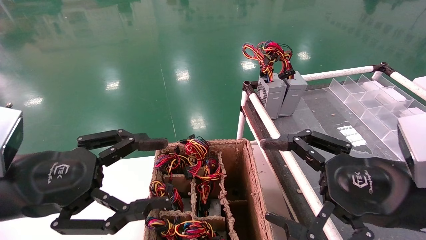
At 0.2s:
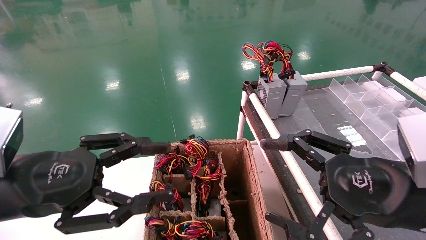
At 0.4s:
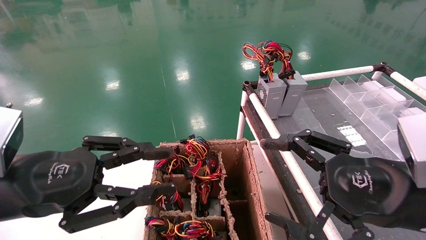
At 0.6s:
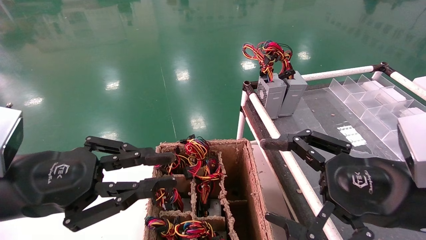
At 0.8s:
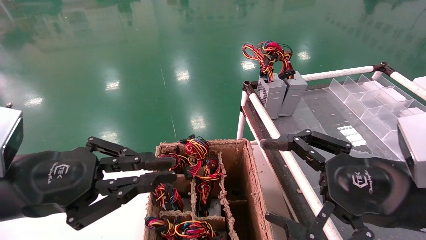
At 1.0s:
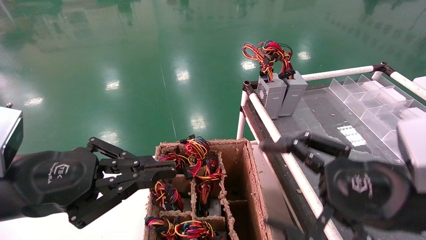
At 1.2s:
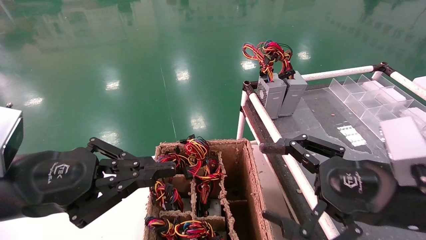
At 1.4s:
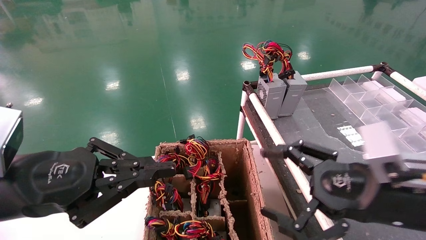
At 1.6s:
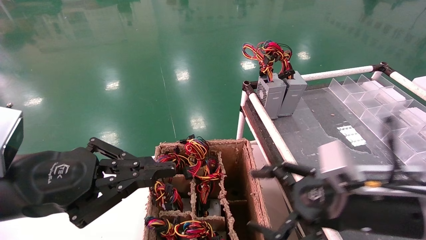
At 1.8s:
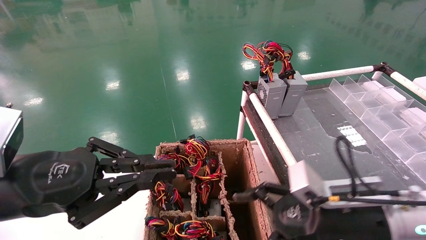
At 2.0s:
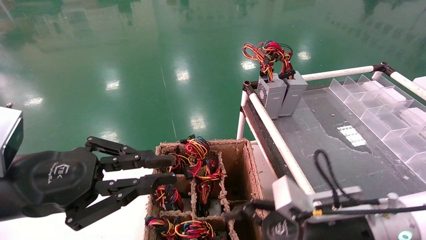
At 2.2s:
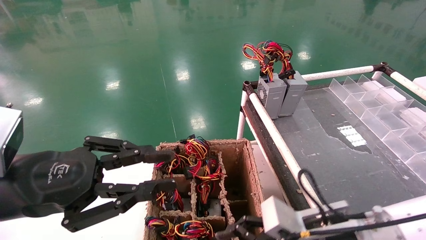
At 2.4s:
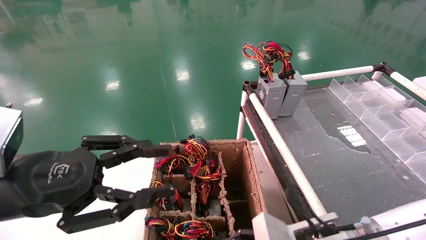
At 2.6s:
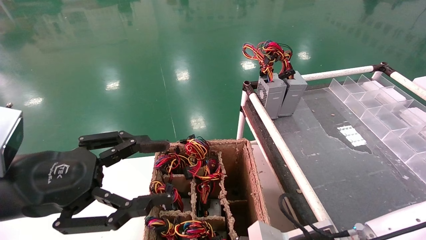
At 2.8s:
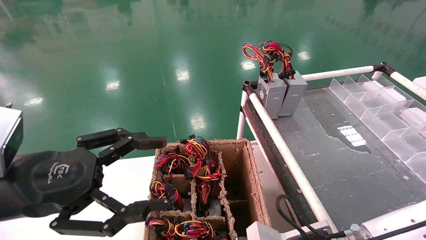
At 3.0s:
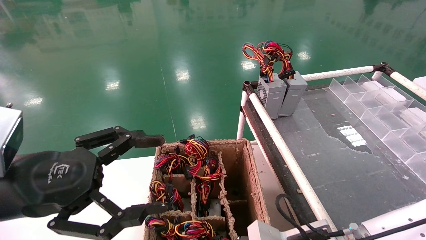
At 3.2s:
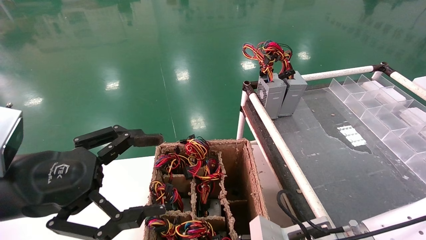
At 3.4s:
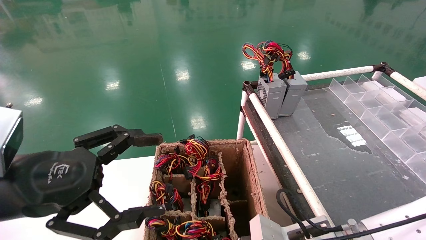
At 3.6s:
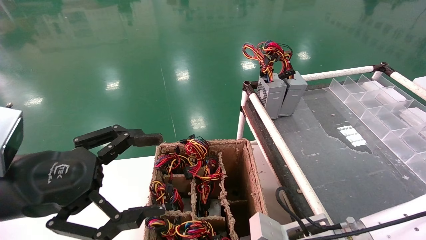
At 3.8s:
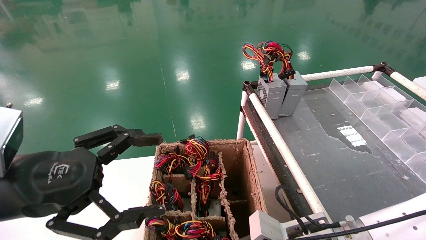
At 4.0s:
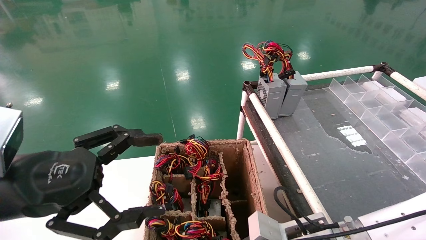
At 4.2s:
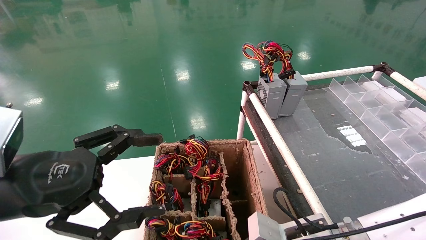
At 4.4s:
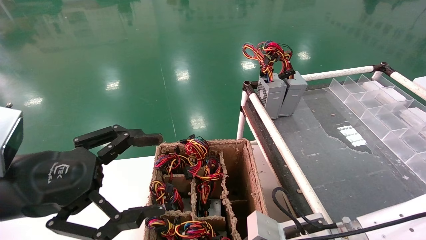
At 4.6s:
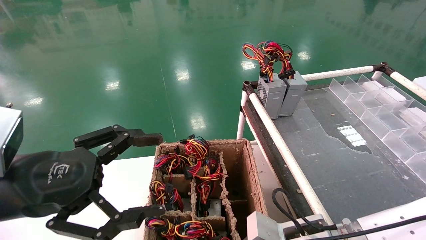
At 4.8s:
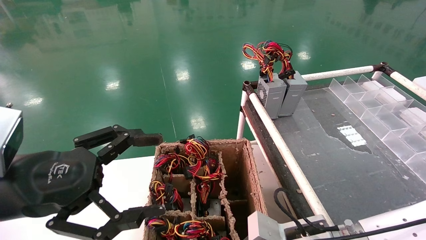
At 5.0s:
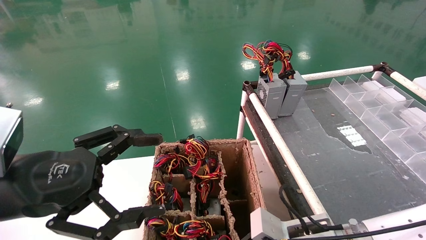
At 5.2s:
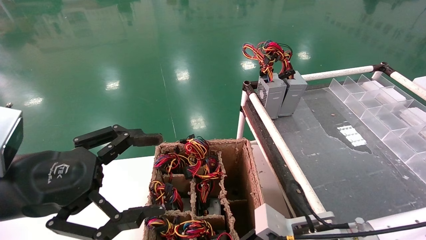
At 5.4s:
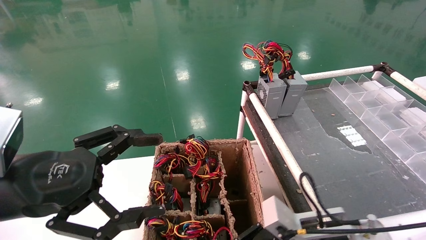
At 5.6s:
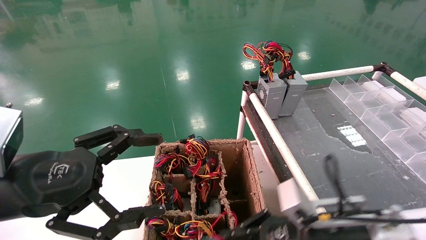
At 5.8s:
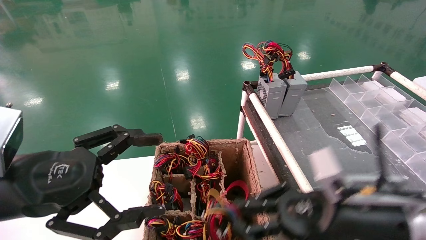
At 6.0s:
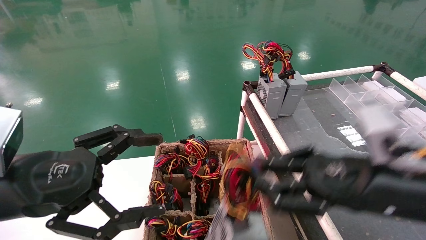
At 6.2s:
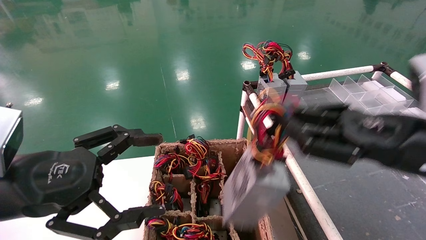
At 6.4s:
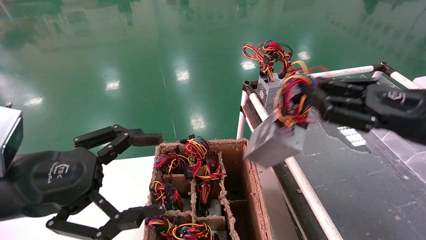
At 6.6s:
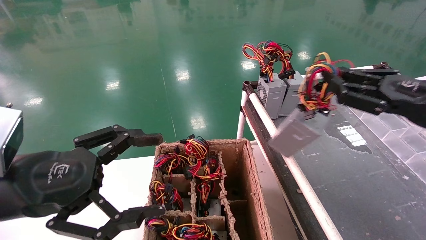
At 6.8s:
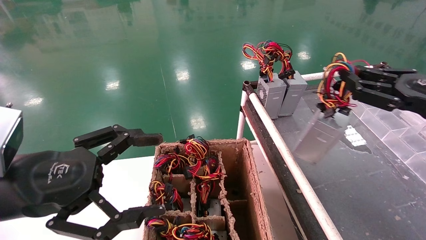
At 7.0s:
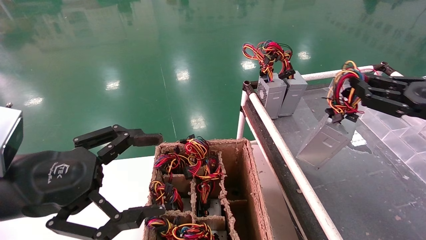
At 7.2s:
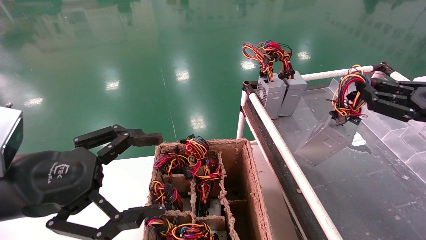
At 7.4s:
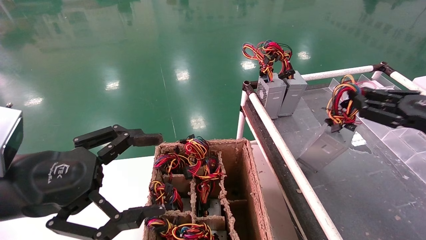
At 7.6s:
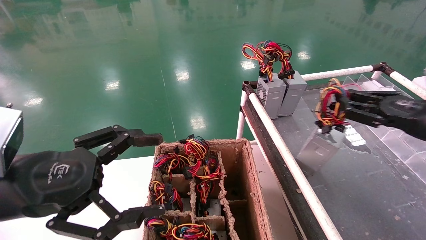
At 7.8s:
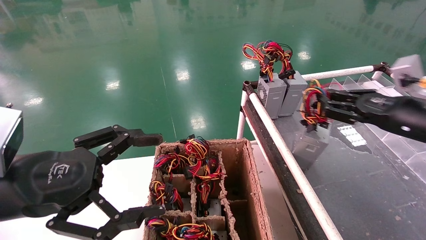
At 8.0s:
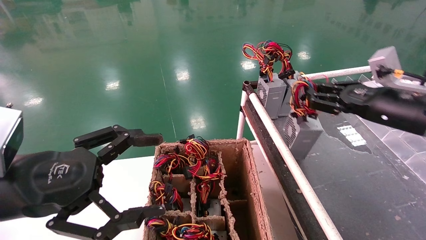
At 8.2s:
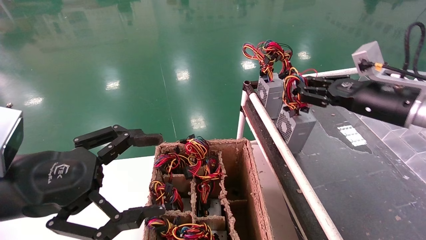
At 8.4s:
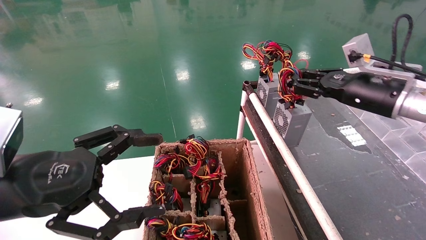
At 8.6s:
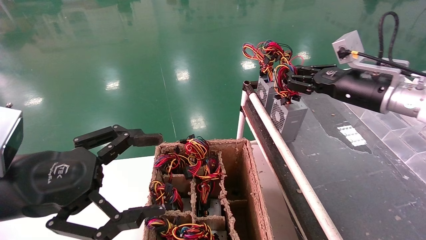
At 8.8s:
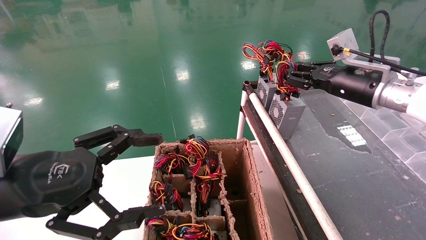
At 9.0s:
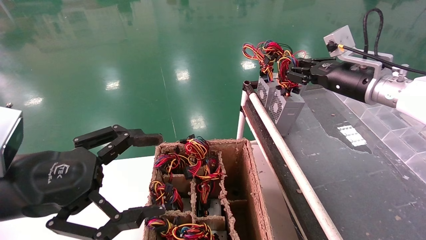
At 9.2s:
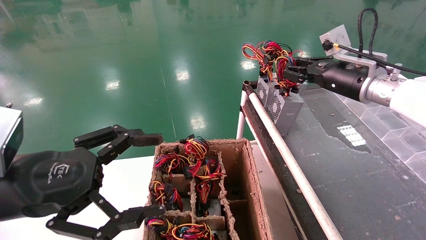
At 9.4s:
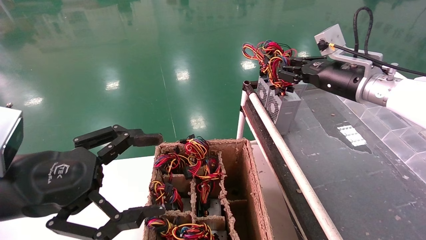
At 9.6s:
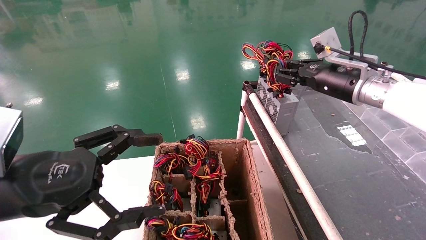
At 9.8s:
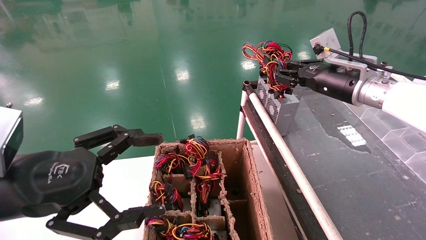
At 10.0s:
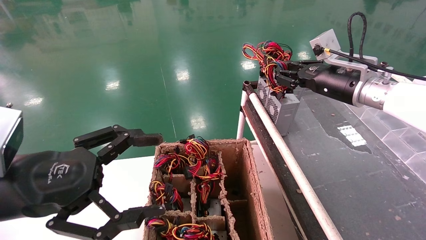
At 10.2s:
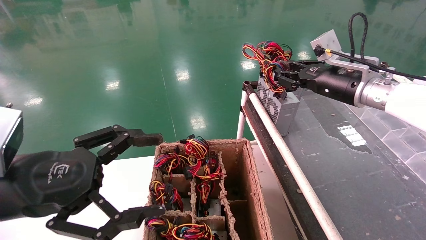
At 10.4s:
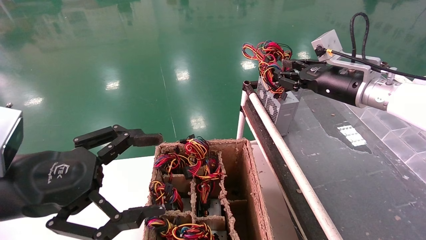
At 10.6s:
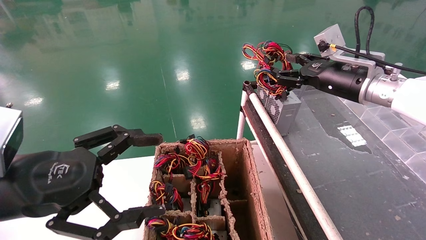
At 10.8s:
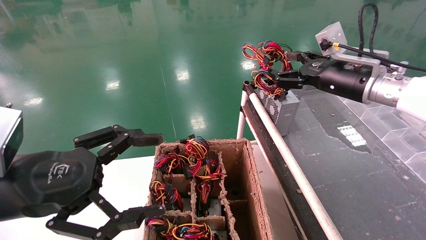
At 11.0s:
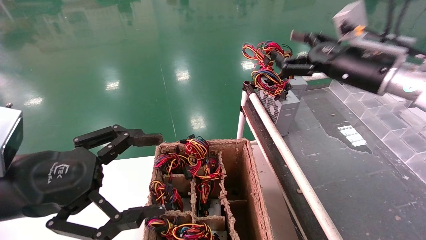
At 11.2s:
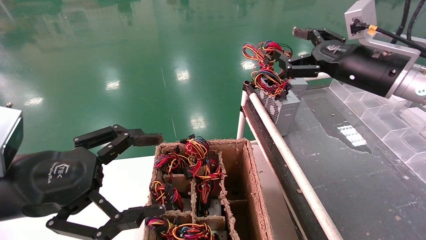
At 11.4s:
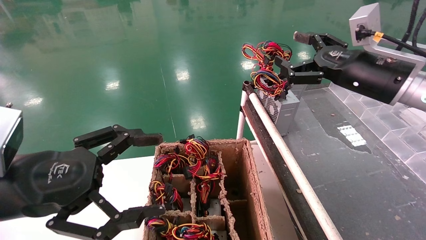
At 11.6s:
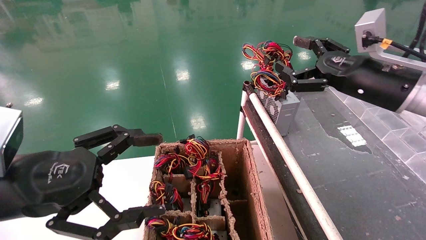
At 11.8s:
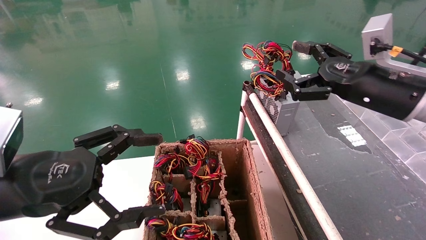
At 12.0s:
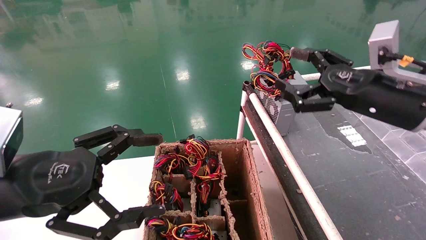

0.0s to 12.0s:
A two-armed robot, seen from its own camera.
Step, 1.2s to 4.4s: Grab and lift the power supply from the large box.
Step, 4.6s to 10.2s: Place the power supply on the operating table.
0.0s to 1.6s: The left gripper closes up, while the right gripper goes about 5 cm downward.
1.6s to 3.0s: The right gripper moves downward and to the left, roughly 10 cm. The left gripper opens its fingers.
3.0s to 4.4s: The right gripper closes its fingers.
4.4s to 6.0s: The right gripper goes about 15 cm upward and to the right.
6.0s to 7.6s: The right gripper shifts about 15 cm to the right and forward.
7.6s to 9.0s: The right gripper heads forward, to the left and upward, covering some 15 cm.
9.0s to 10.4s: There are only small adjustments of the grippers.
10.4s to 12.0s: The right gripper is displaced backward by approximately 10 cm, and opens.

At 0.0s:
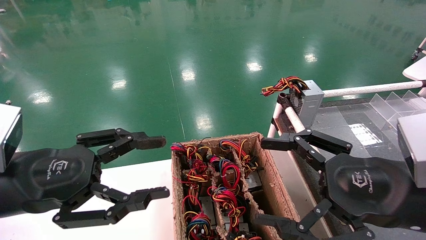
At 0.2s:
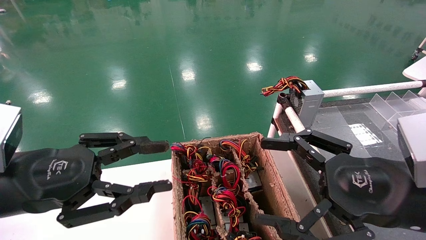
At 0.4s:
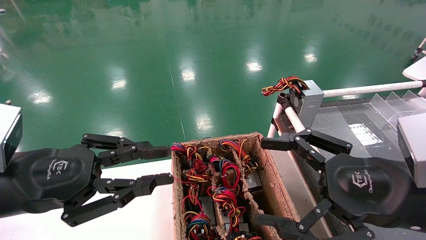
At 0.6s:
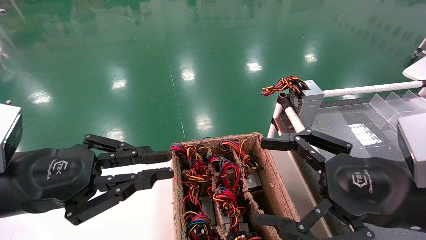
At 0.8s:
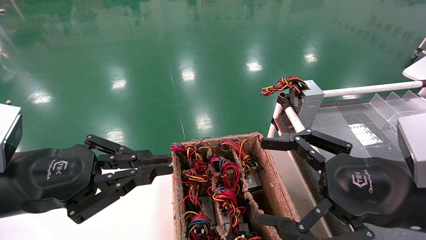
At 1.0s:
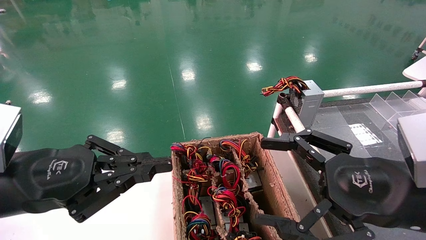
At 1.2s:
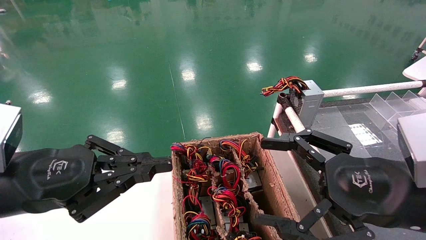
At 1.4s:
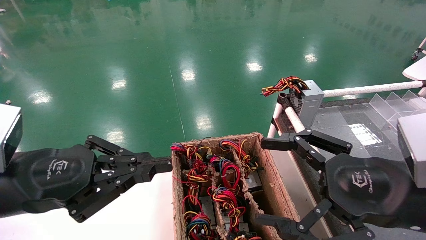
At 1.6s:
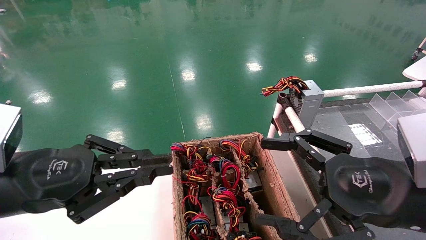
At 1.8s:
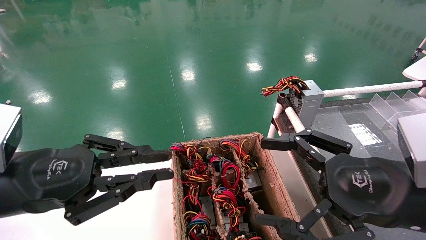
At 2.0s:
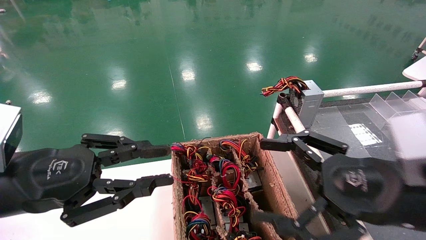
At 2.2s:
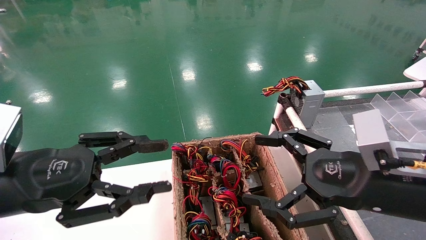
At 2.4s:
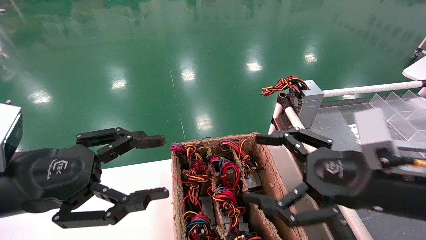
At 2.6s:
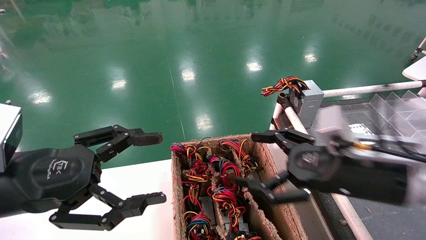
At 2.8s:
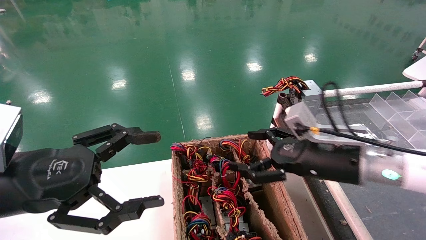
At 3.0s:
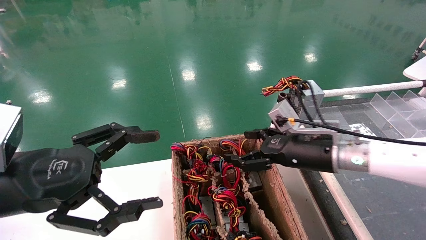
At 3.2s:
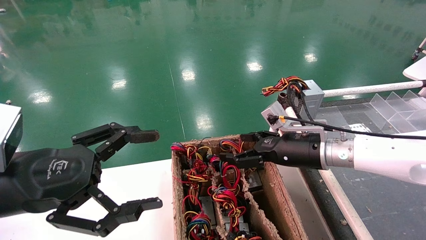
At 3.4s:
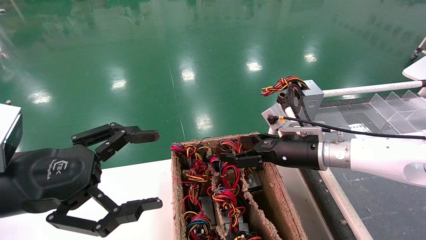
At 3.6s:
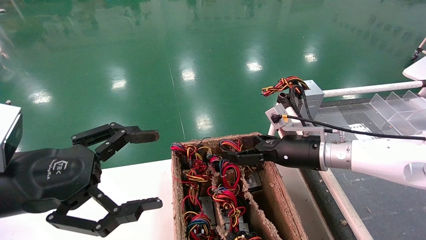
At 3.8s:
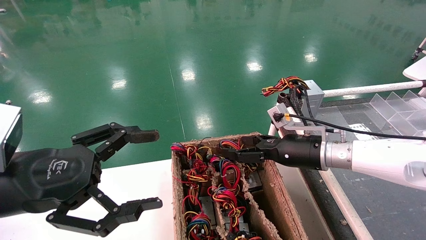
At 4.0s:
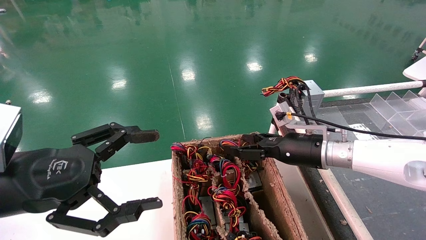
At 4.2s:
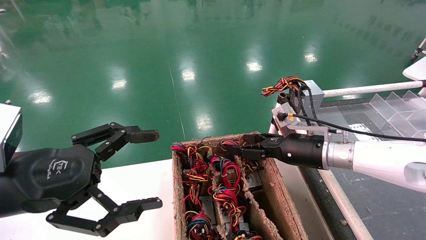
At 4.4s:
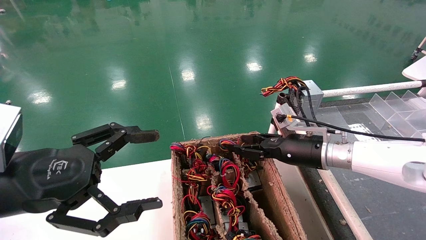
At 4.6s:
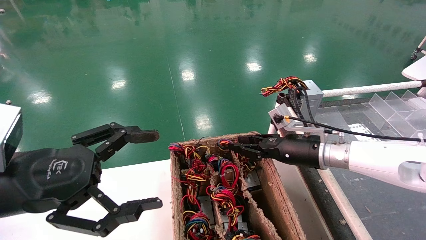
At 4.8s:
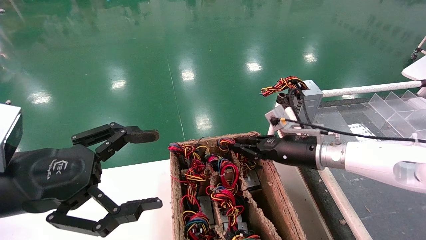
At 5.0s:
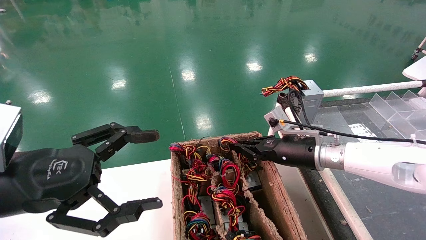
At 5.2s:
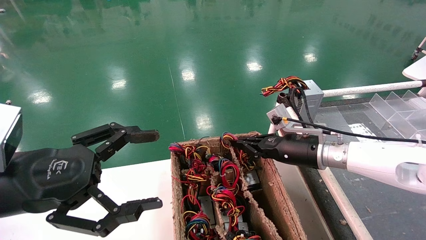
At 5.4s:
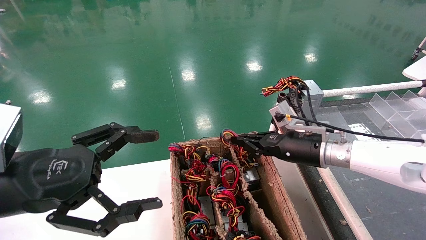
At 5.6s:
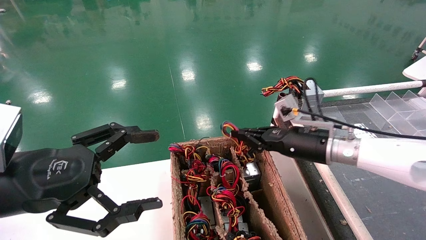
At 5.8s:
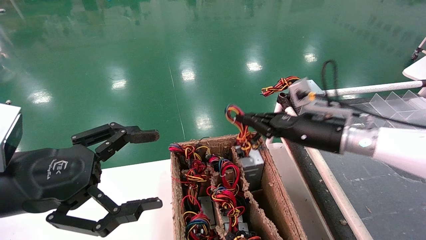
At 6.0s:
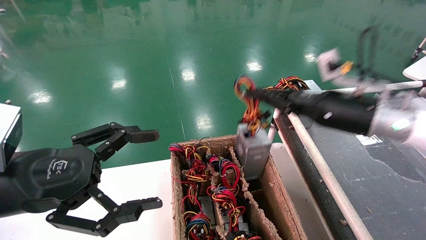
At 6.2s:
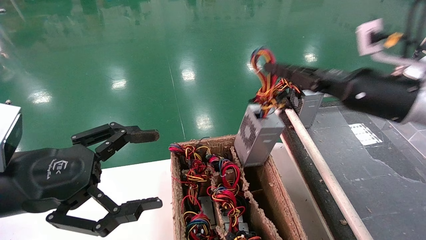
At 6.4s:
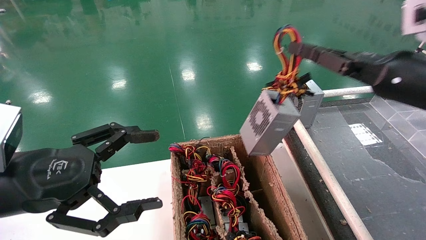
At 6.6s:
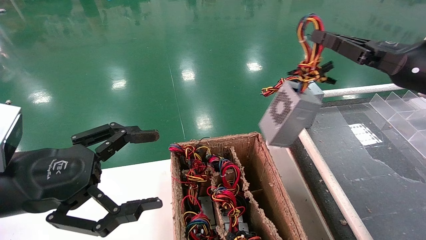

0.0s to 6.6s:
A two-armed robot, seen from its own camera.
Step, 1.2s to 5.4s: Grab and lift the power supply from the large box.
0.0s to 1.6s: The left gripper closes its fingers.
1.6s to 3.2s: The left gripper opens its fingers. Meanwhile the right gripper moves forward, about 20 cm.
3.2s to 5.0s: The right gripper closes its fingers.
5.0s to 6.6s: The right gripper goes about 25 cm upward, to the right and backward.
